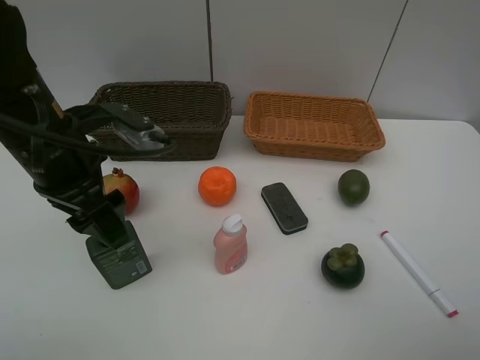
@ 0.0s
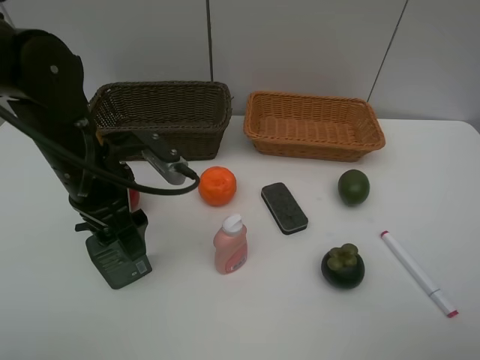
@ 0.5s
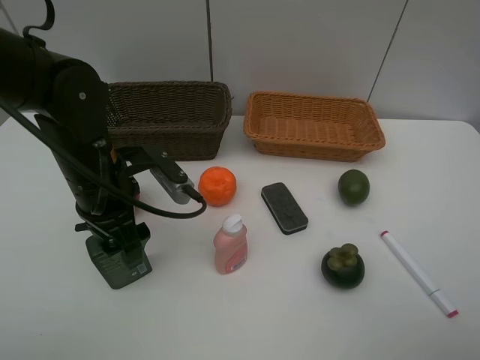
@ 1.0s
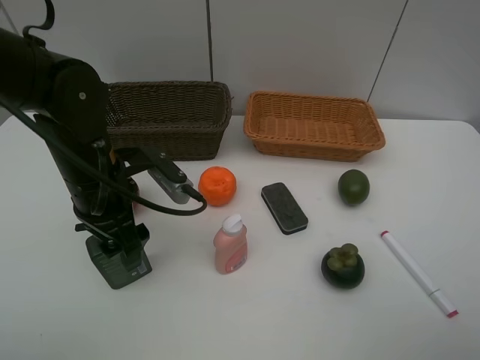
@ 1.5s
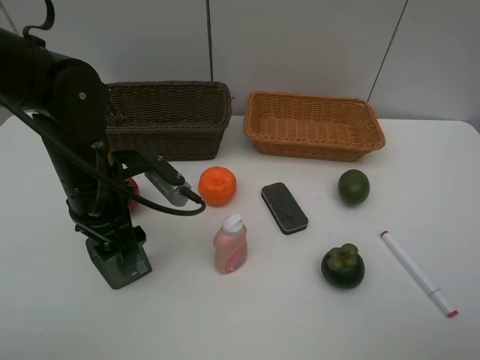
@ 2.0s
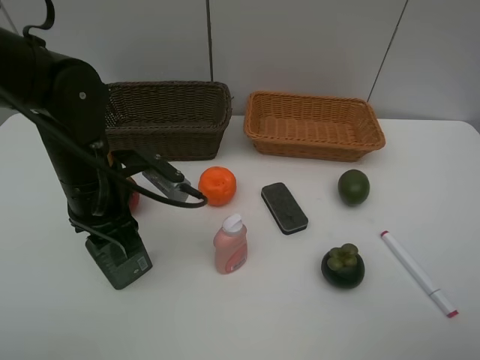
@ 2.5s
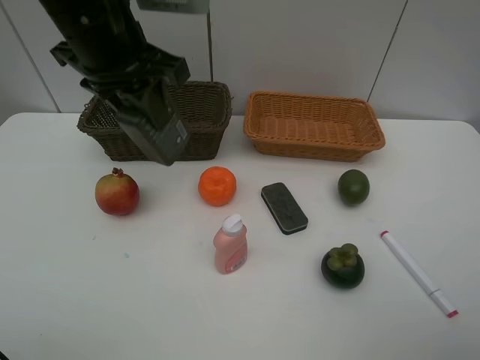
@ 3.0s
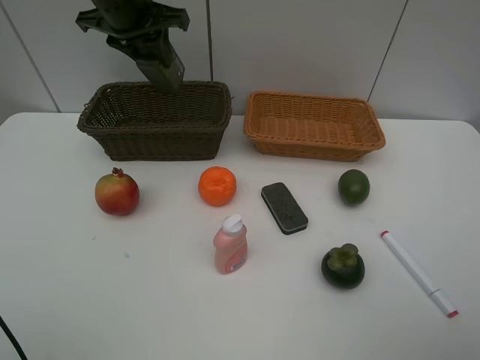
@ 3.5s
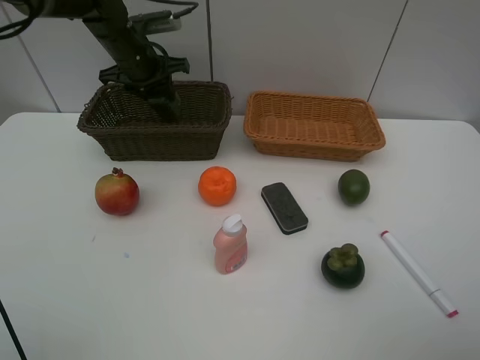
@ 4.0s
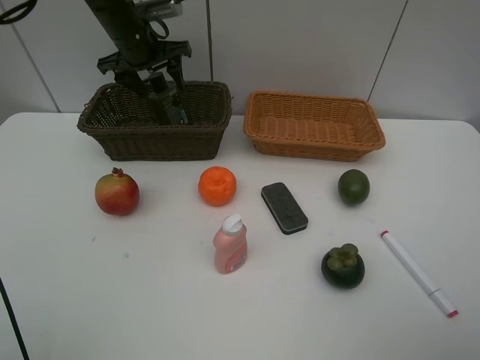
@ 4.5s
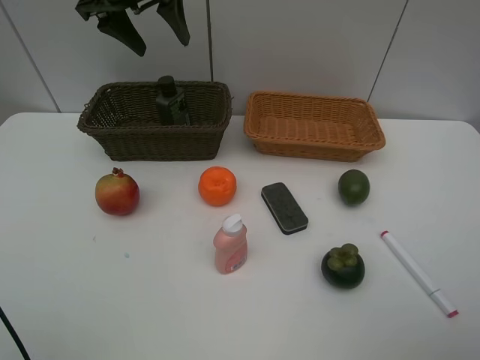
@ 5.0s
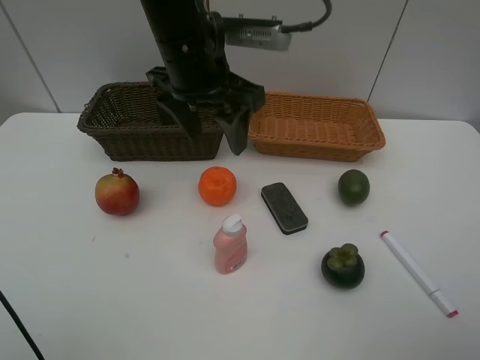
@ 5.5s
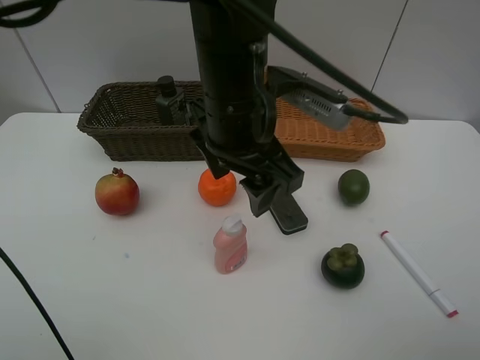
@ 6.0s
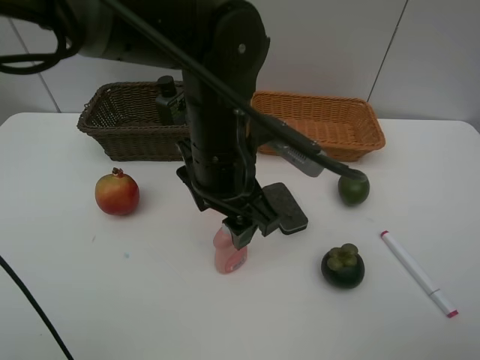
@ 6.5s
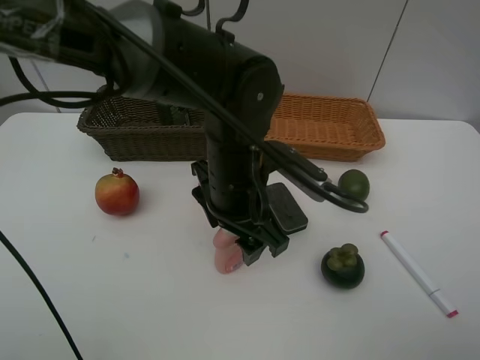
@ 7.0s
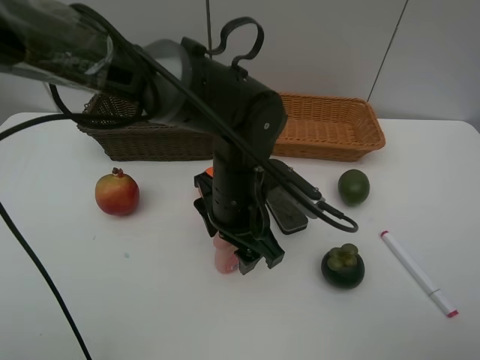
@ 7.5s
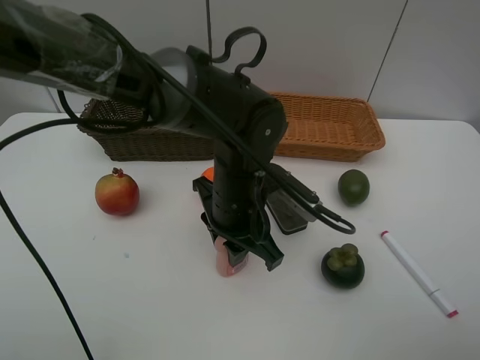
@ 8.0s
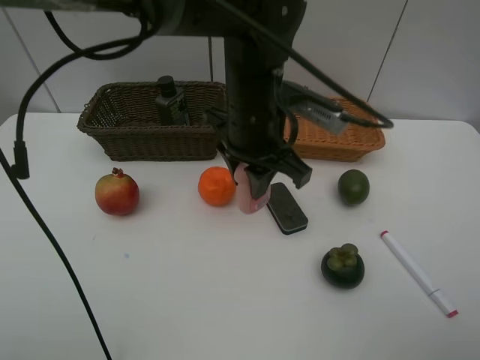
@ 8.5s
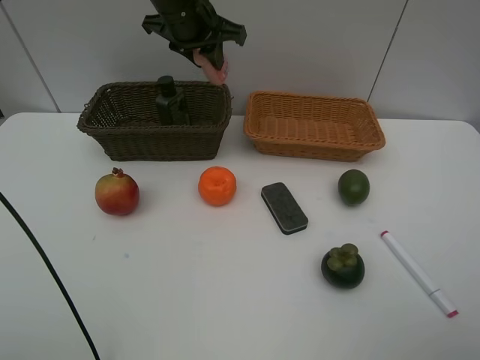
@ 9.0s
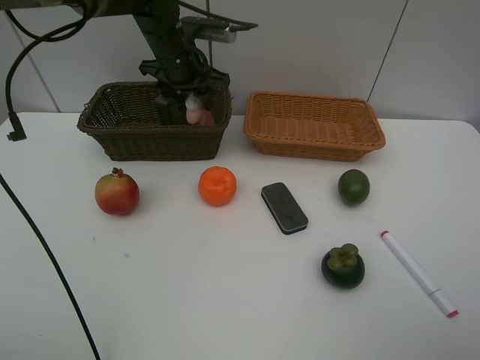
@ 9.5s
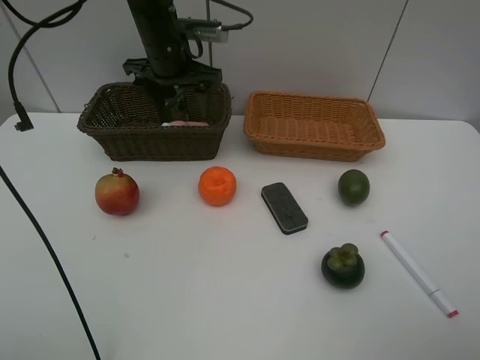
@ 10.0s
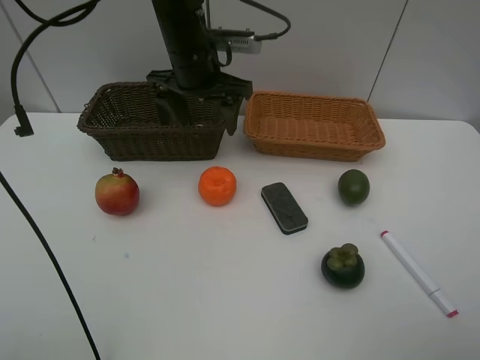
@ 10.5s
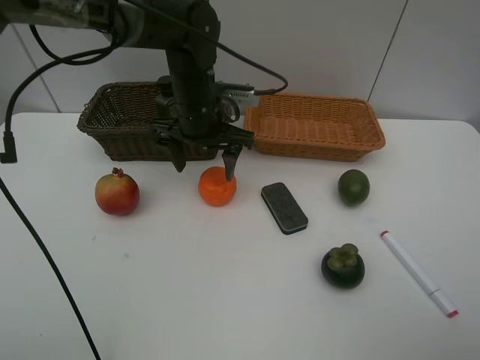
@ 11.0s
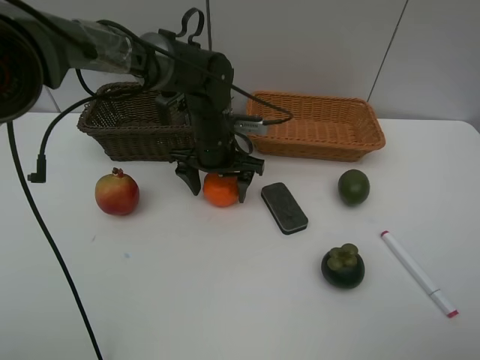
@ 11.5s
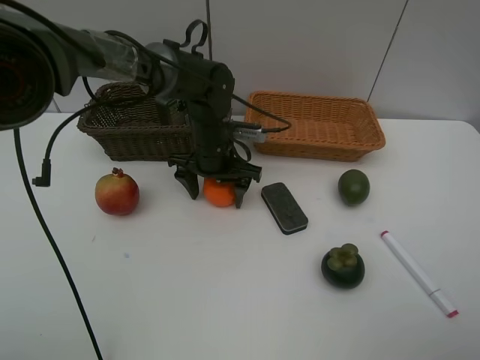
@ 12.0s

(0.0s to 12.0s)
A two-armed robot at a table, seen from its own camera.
Task of the whole recording: Place multiple objects separately in different baskets.
Step, 0.0s - 2.5s: Pick up the hard facial cleanser with left gripper.
Step, 3.0s - 4.5s: Place the hard facial cleanser in the dark basket with left gripper.
Step, 5.0s - 8.0s: Pick up the laundry detergent with left gripper.
Step, 8.5s - 9.5s: Place the laundry detergent in the dark basket with left gripper.
0.0s - 2.0s: The left gripper shifts approximately 5 cm downward.
2.0s - 4.0s: The left gripper moves forward, approximately 25 cm, and closes its fingers.
4.0s - 6.0s: The left gripper goes approximately 30 cm backward and to the right, and opens its fingers.
6.0s - 8.0s: The left gripper moves downward, approximately 10 cm, and closes up.
8.0s - 10.0s: The left gripper moves forward, to the left and upward, roughly 25 cm, and opens its fingers.
10.0s - 12.0s: The left gripper travels downward, backward and to the right by about 15 cm.

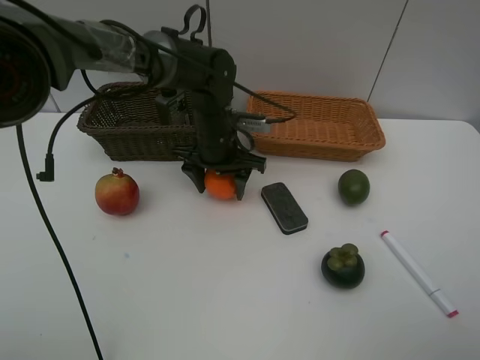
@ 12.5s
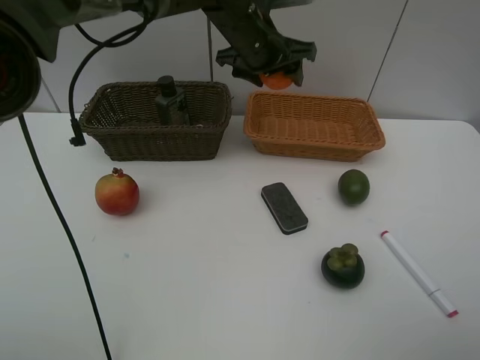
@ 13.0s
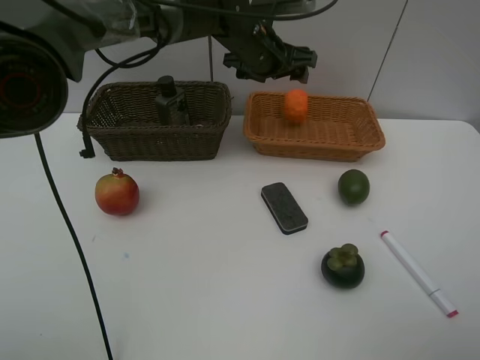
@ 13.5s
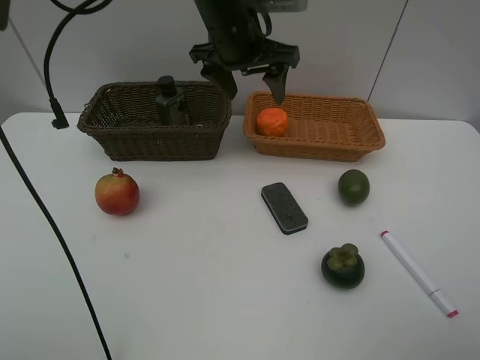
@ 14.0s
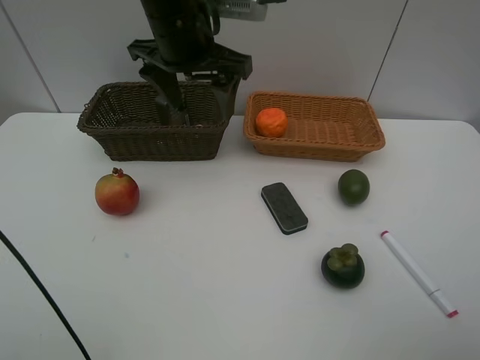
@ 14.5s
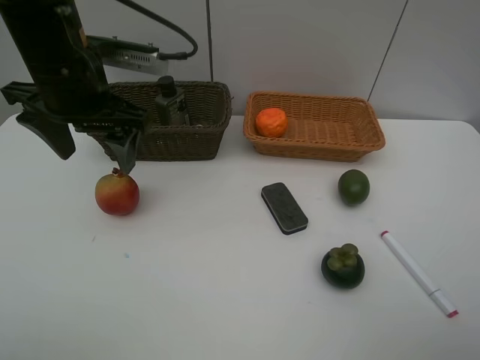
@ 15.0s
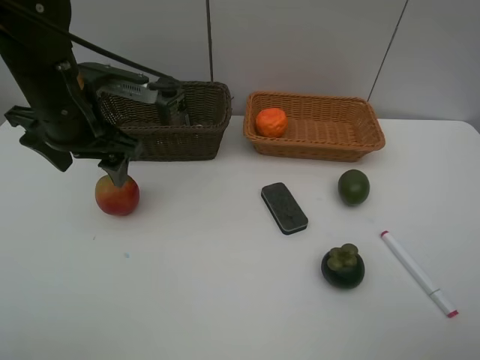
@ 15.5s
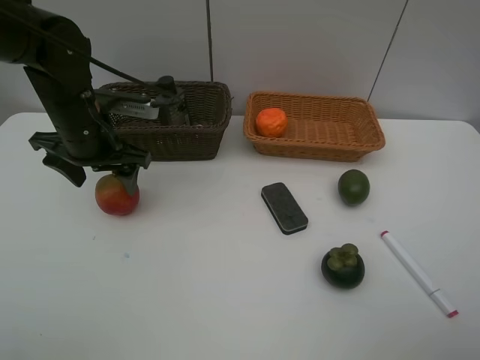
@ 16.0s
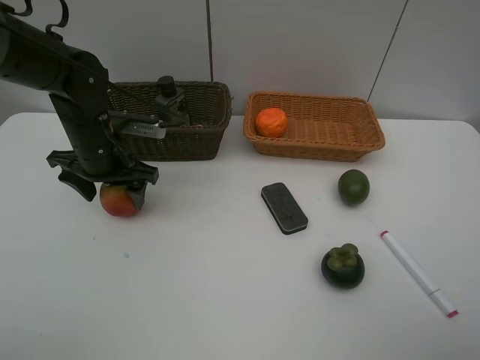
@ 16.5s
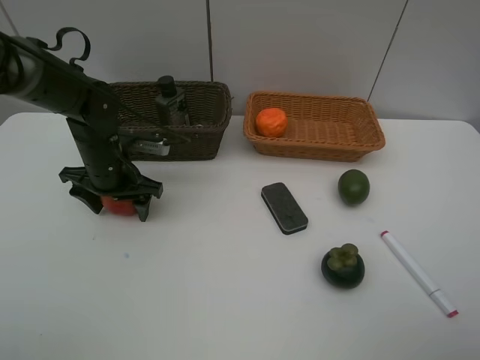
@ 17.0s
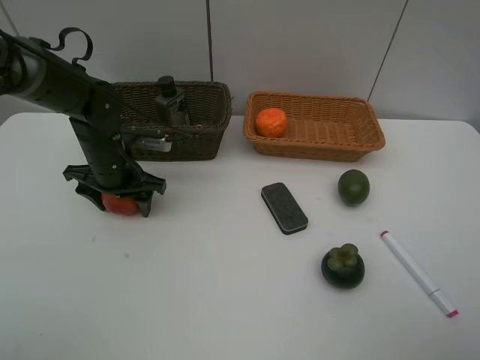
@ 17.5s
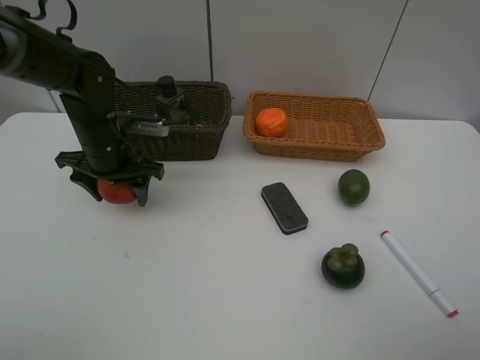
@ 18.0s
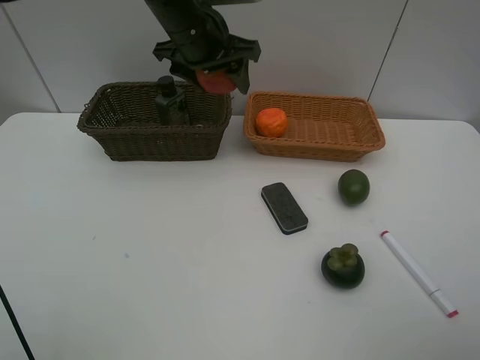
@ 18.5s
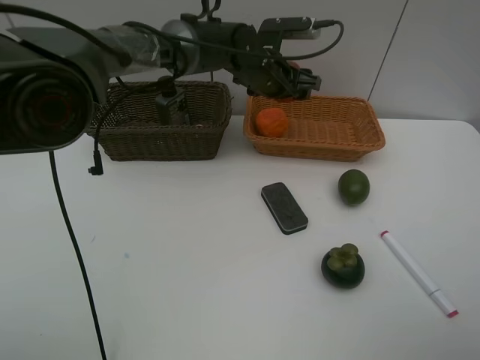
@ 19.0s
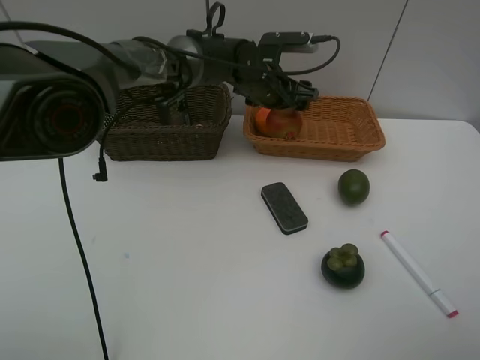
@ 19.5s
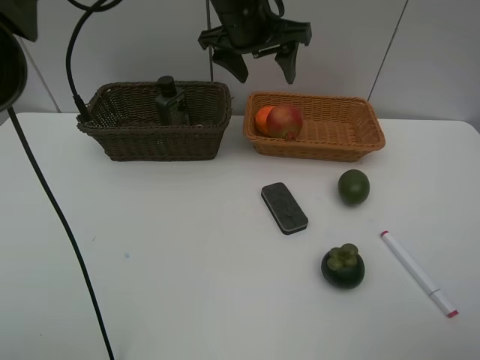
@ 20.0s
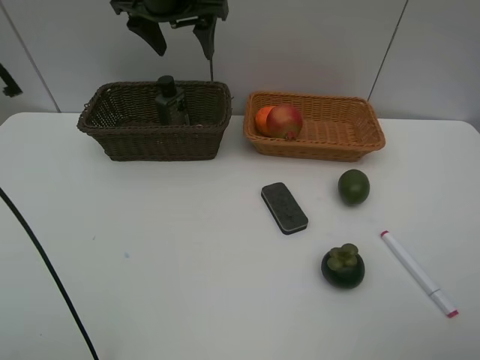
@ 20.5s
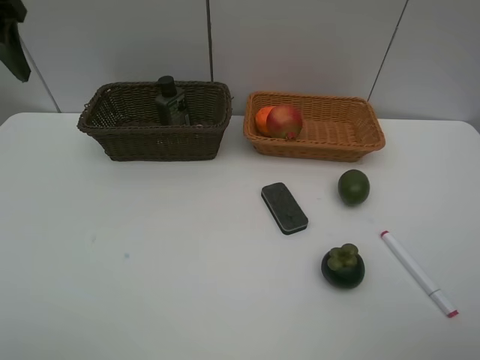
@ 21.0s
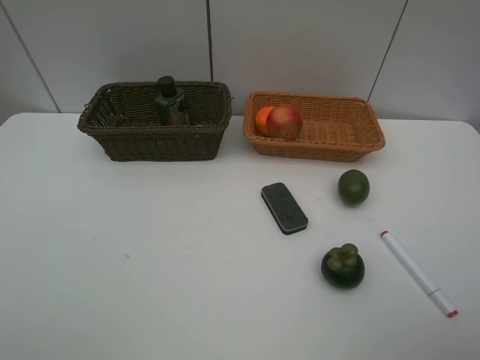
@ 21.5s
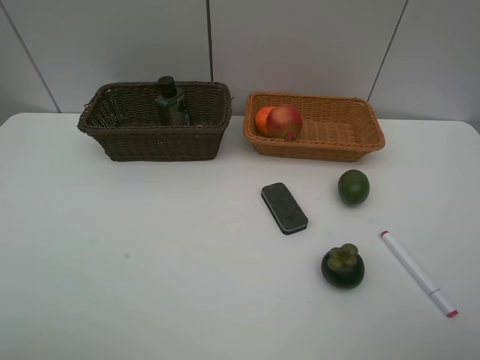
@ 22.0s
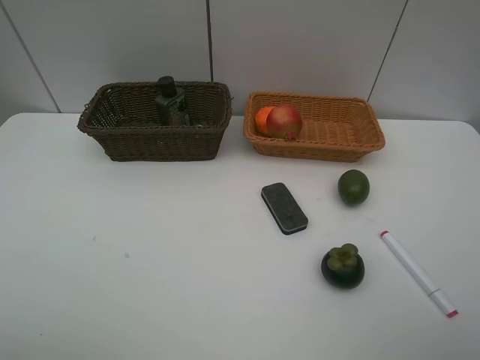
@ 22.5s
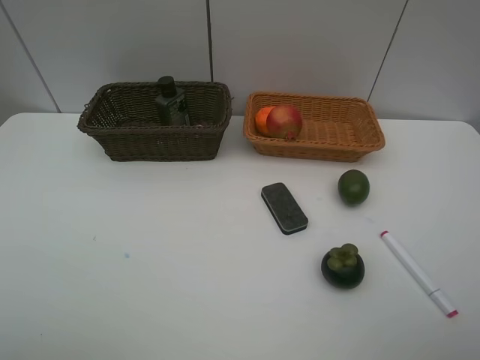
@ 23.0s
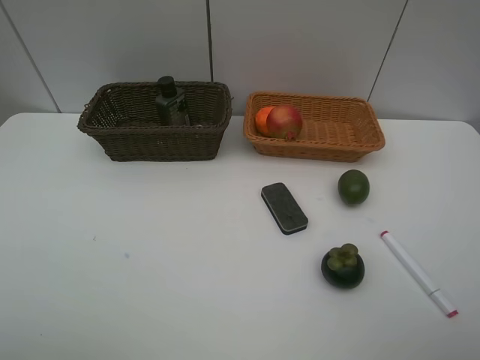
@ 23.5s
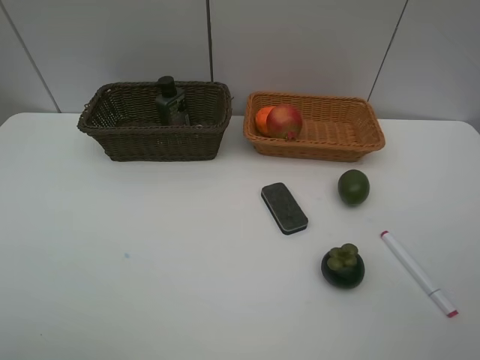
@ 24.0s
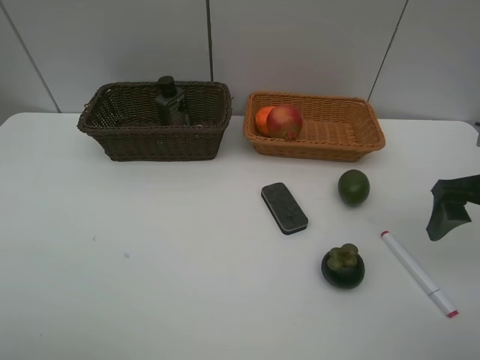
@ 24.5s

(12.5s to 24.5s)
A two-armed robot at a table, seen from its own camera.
Task of the whole recording: Place multiple objects separately in different baskets.
Step, 13.0s - 13.5s: Place the orange in the light basket with left gripper.
Step, 14.0s - 18.0s: Pick up the pomegranate with left gripper.
Step, 18.5s - 19.5s: Place the pomegranate in the light basket with left gripper.
12.5s - 14.5s: The left gripper shifts approximately 15 cm upward.
14.5s - 16.5s: The left gripper travels downward and to the left by some 20 cm.
16.5s - 18.5s: The left gripper moves to the right, upward and forward, roughly 20 cm.
18.5s - 20.5s: The left gripper heads to the left, covering some 5 cm, and reaches some 10 cm downward, then returns.
20.5s - 22.5s: The left gripper travels backward and to the left by some 50 cm.
22.5s - 24.5s: The right gripper shifts about 20 cm forward.

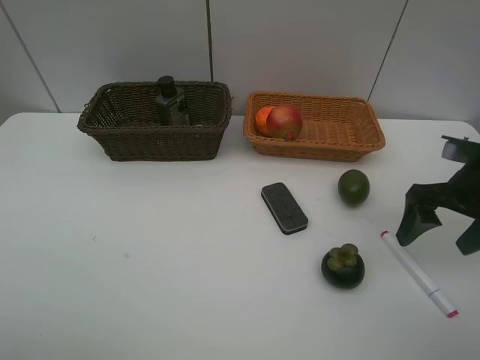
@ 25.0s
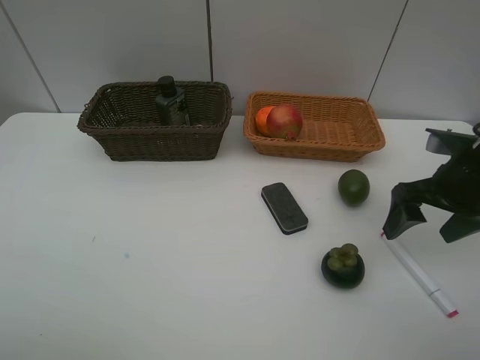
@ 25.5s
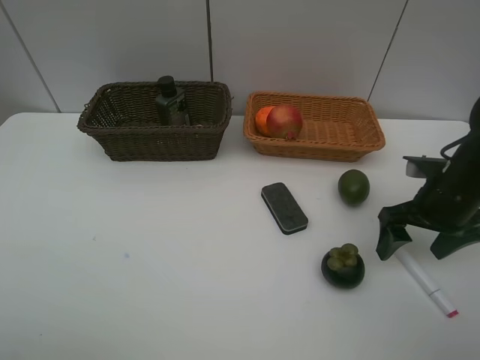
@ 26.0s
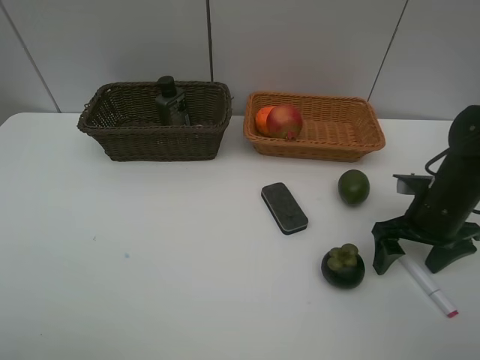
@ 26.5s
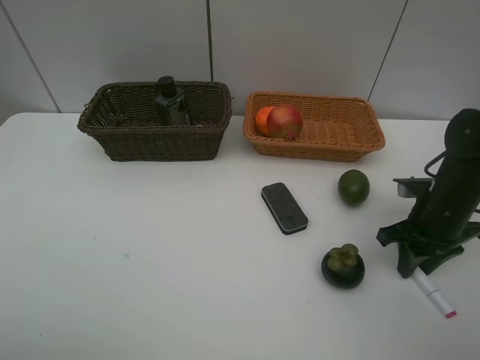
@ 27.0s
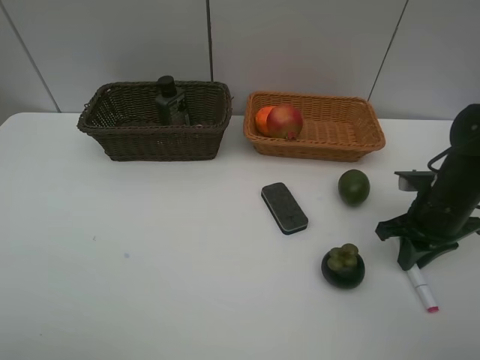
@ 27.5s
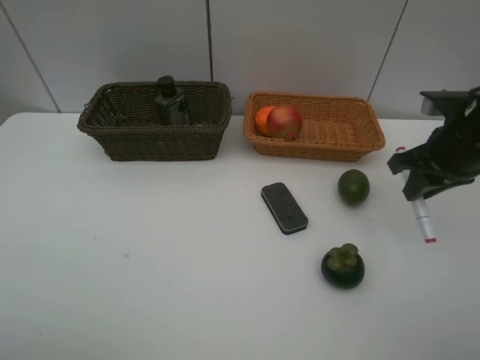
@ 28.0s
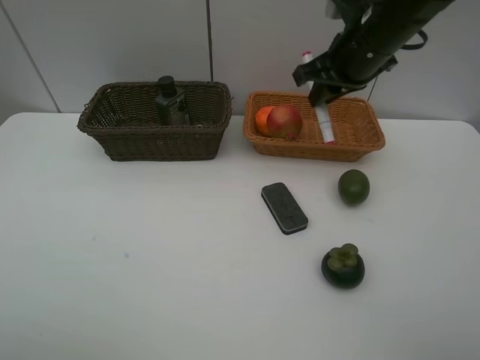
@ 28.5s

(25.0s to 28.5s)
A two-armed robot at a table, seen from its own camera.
Task of the whole recording: Place multiple objects separately in different baskets.
Step, 25.0s - 27.5s: Pick up the red marker with right gripper.
25.0s - 27.0s: The right gripper travels downward by roughly 10 cm, and closes its fingers.
27.0s - 28.5s: The right gripper heads upward, to the left and forward, covering roughly 25 cm.
